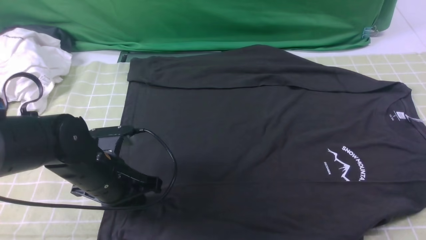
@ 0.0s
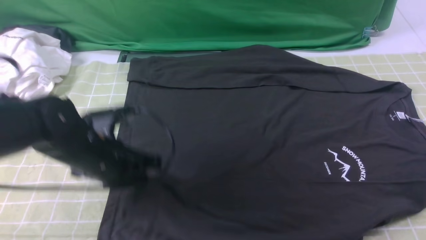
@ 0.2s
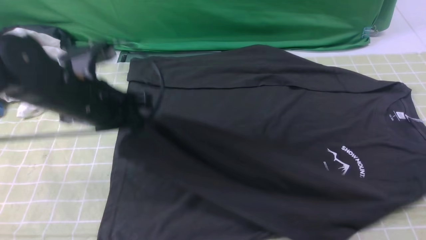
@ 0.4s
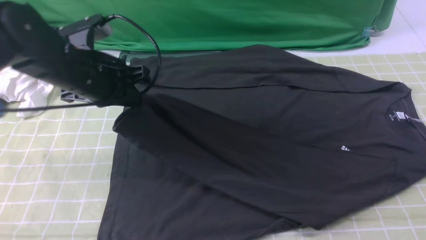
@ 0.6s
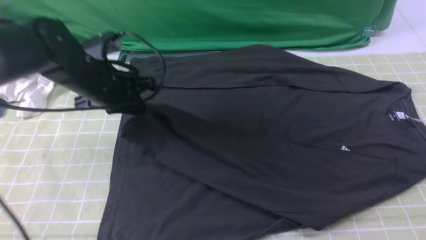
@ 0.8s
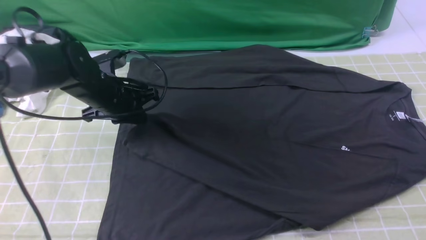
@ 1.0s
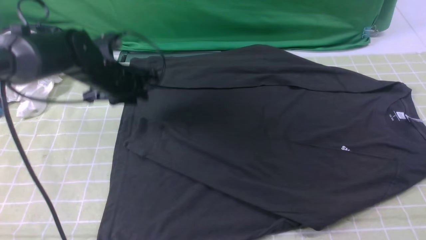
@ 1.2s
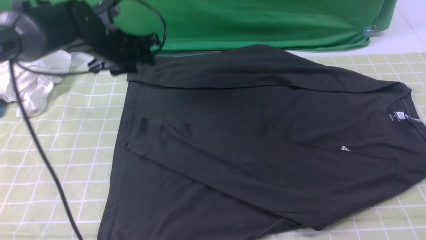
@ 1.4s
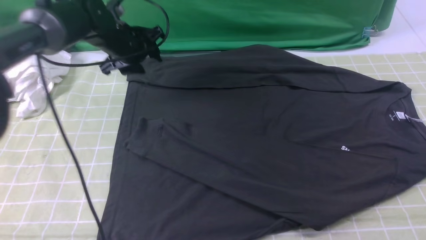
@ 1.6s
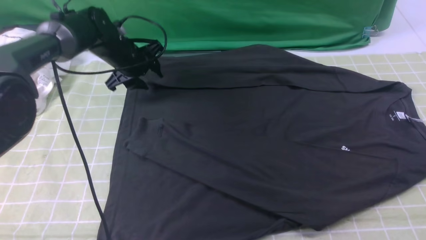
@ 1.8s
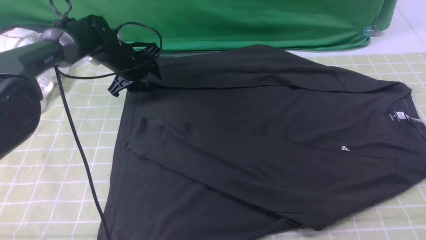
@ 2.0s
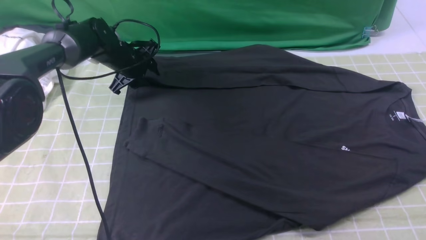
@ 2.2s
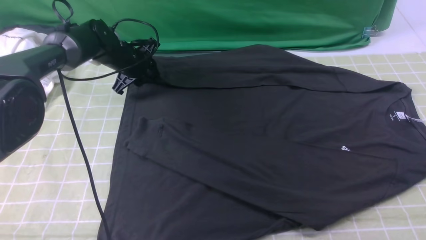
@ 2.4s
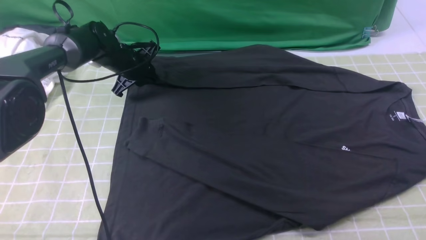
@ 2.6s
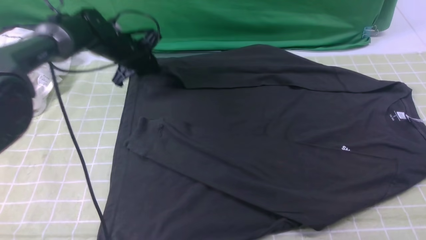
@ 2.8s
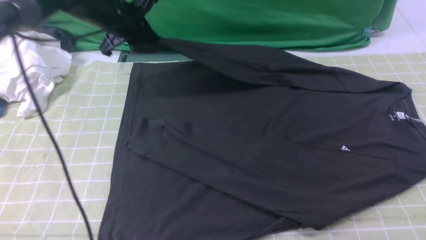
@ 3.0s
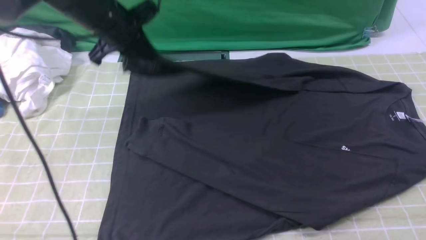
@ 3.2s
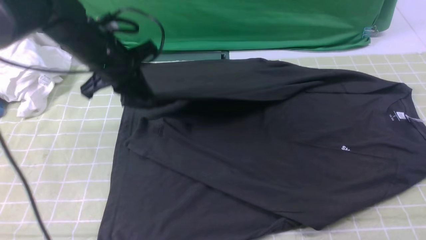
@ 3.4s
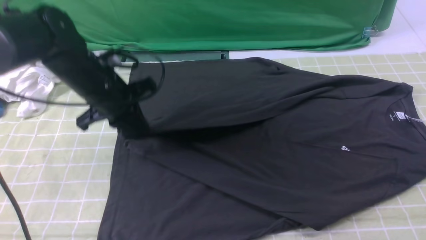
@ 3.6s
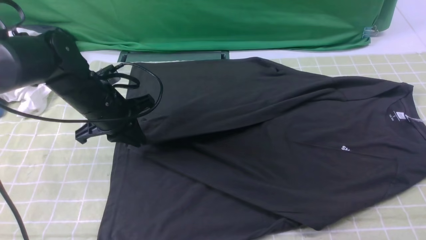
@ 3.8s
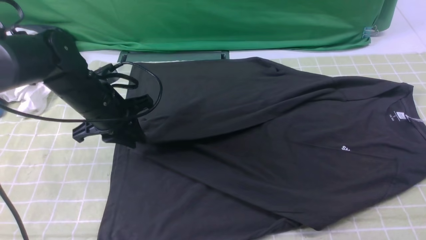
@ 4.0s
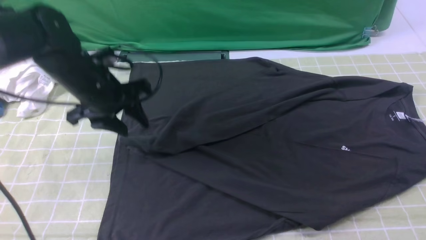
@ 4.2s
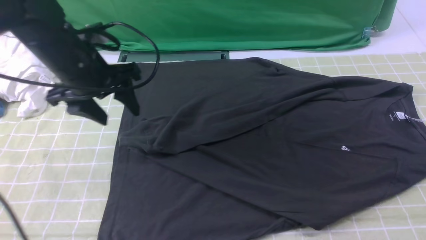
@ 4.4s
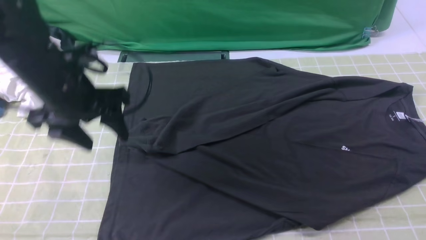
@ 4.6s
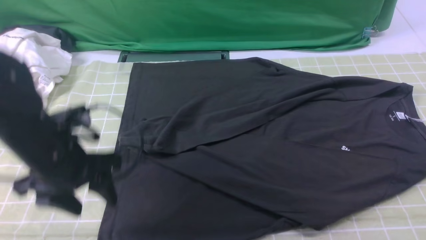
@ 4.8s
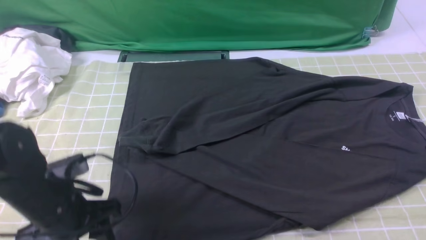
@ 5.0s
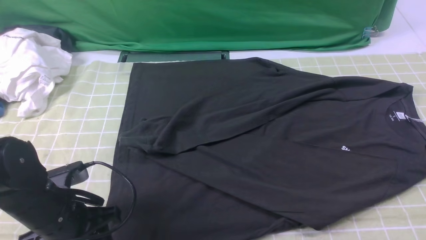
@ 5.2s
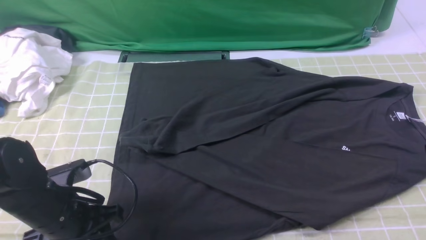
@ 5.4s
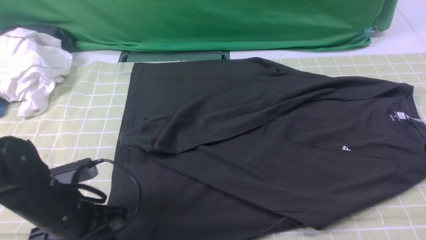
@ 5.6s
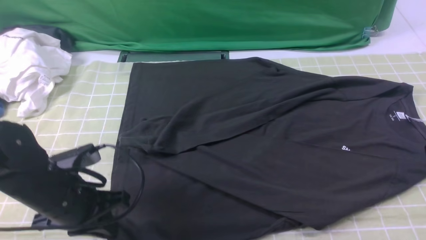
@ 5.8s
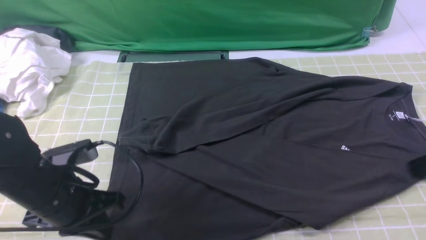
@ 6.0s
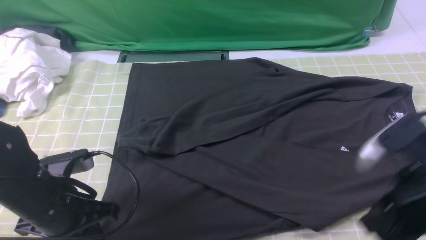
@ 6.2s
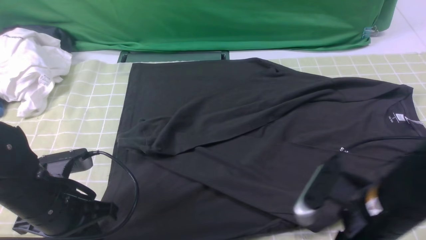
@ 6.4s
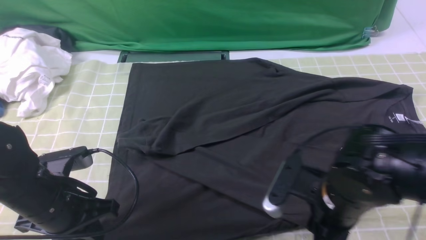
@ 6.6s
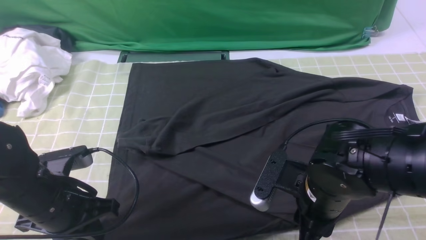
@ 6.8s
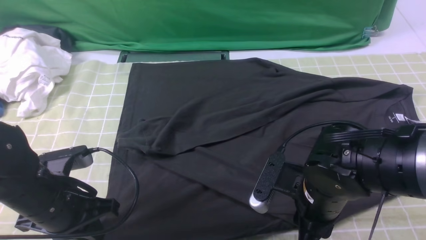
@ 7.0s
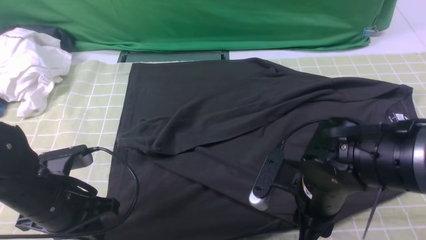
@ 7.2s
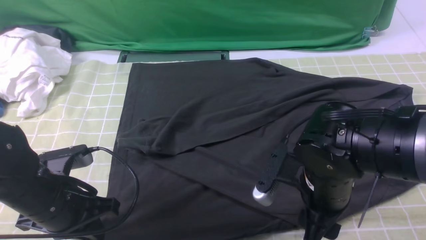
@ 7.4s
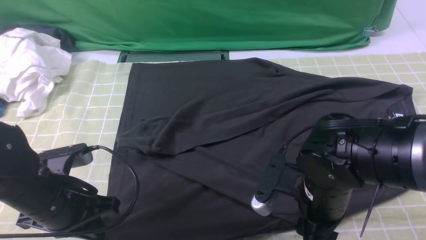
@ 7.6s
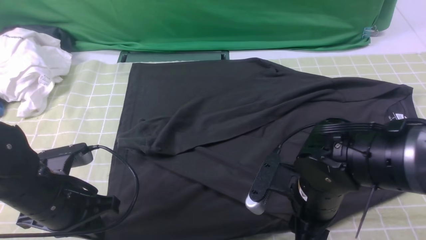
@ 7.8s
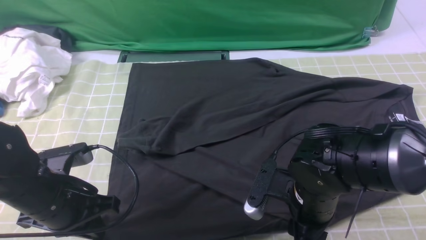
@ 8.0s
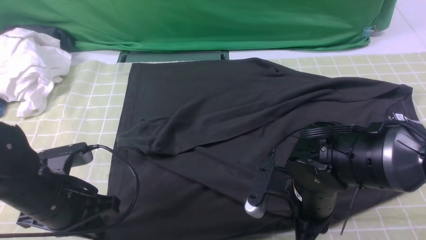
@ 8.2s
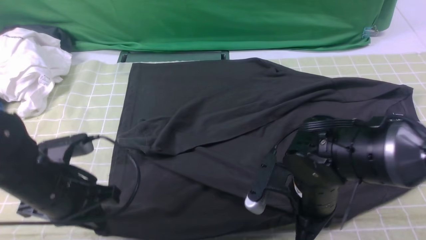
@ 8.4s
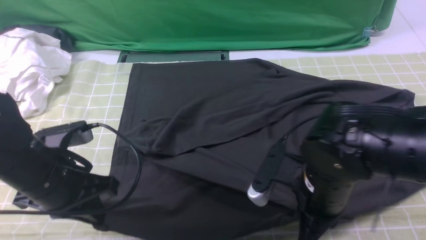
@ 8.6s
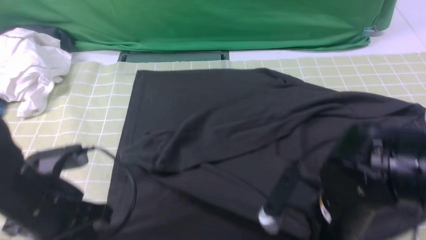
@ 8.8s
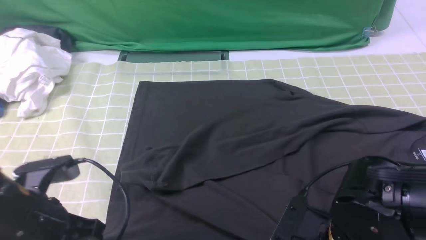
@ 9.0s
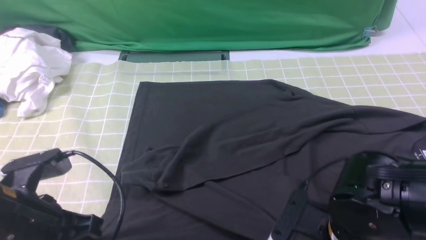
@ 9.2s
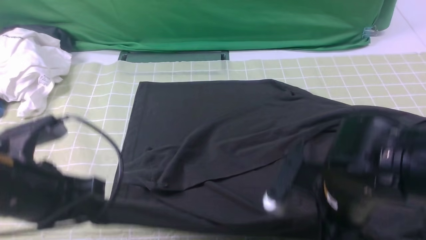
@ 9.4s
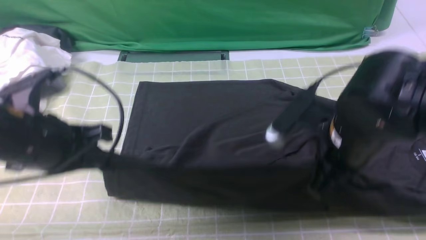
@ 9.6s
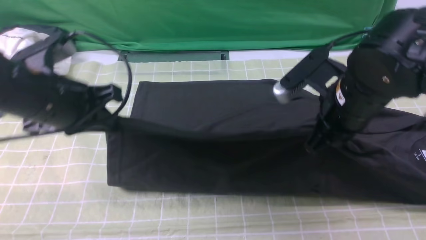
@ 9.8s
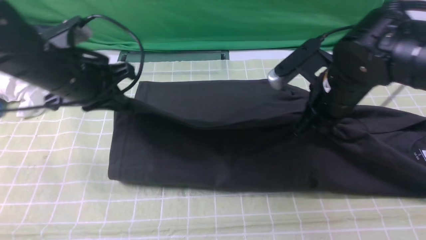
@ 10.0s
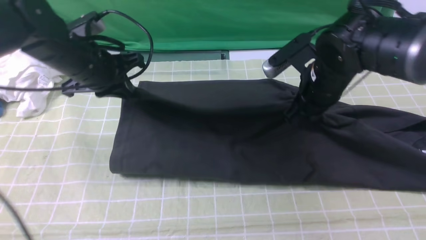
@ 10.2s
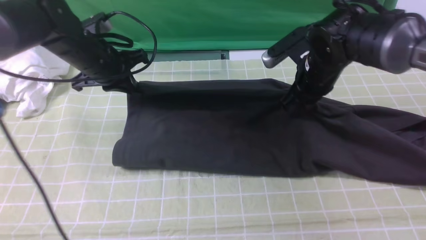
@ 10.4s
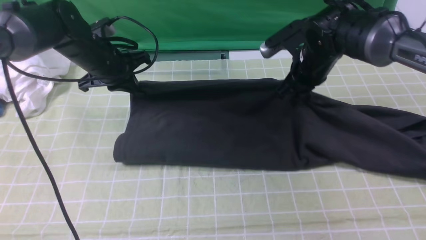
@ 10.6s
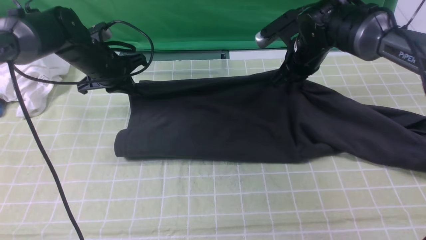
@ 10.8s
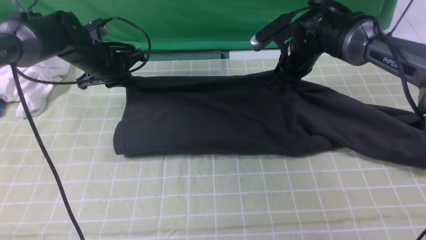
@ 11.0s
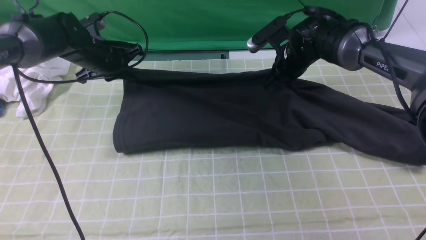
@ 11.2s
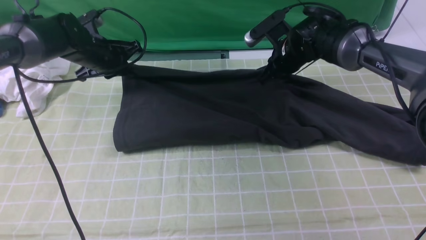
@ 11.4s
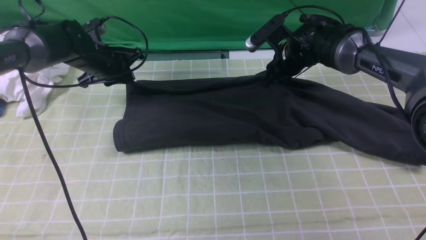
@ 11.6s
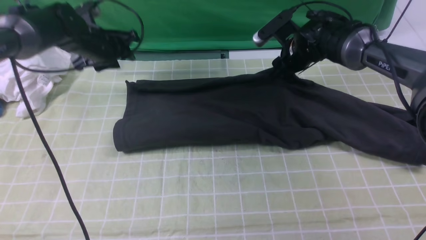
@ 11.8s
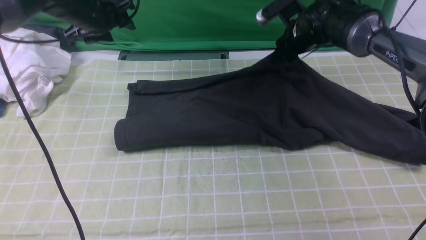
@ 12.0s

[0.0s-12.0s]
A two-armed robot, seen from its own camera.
Step, 0.2s to 1.0s: use the left arm to drag and place the cuff at the centered position on the left edge of the fabric.
Step, 1.2s to 2.6s: use the left arm to clamp the cuff farthest from it.
Step, 2.8s to 4.2s: use the left arm to drag and drop the cuff onto the cuff closest to the left arm.
Step, 4.4s to 8.2s: use both arms simultaneously to clamp the lower edge of the clothing fabric.
0.0s to 1.6s: The left gripper is displaced forward by about 25 cm, and opens its fingers.
1.6s to 3.0s: The left gripper travels upward by approximately 5 cm, and closes up.
3.0s to 4.4s: The left gripper shifts some 15 cm backward, and opens.
4.4s to 6.0s: The left gripper heads backward and downward, covering approximately 15 cm, and closes its fingers.
6.0s to 7.6s: The right gripper shifts about 20 cm to the left and downward, and opens its fingers.
7.6s to 9.0s: The left gripper moves roughly 5 cm; the right gripper is displaced backward by approximately 5 cm, and closes its fingers.
9.0s to 10.4s: The grippers both shift forward by approximately 25 cm.
10.4s to 12.0s: The grippers both shift forward by about 10 cm. The left gripper opens its fingers; the right gripper opens up.

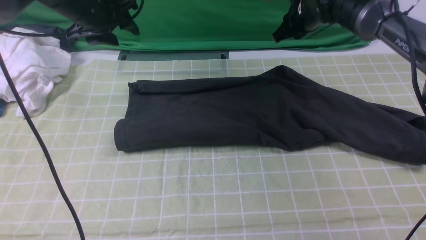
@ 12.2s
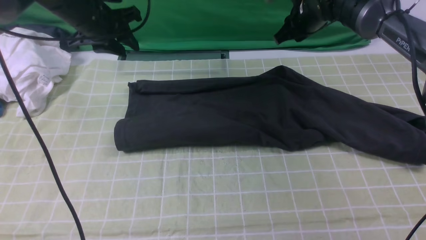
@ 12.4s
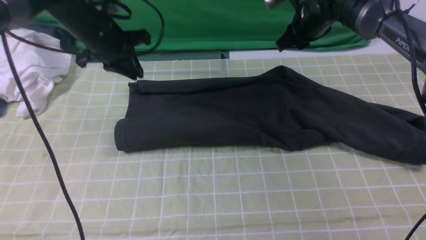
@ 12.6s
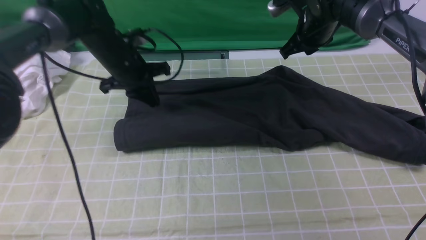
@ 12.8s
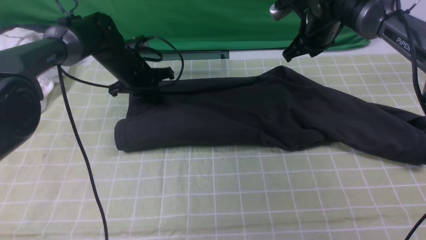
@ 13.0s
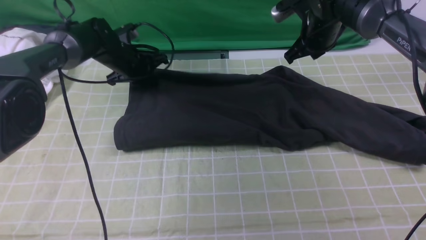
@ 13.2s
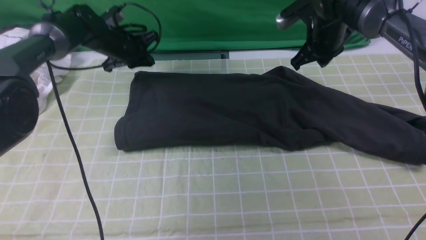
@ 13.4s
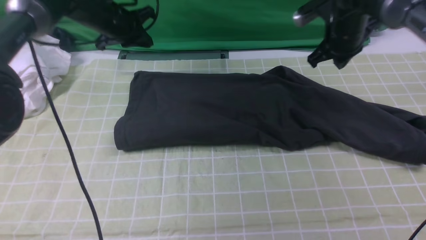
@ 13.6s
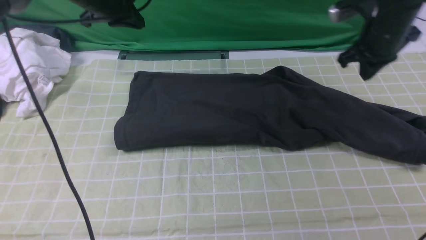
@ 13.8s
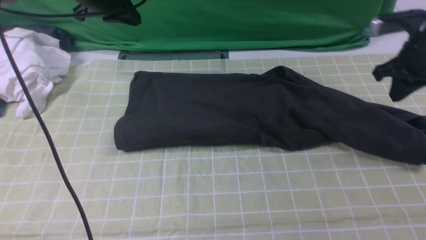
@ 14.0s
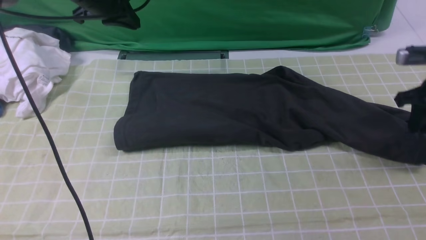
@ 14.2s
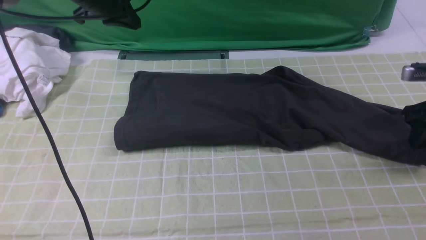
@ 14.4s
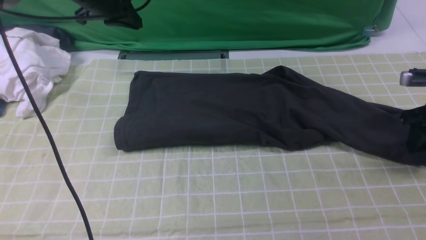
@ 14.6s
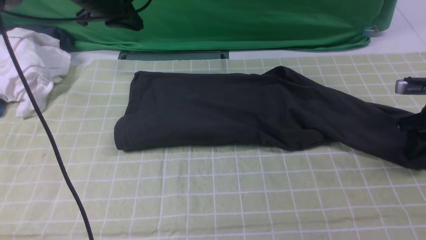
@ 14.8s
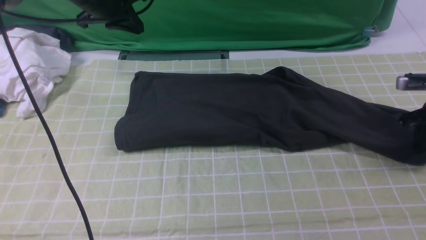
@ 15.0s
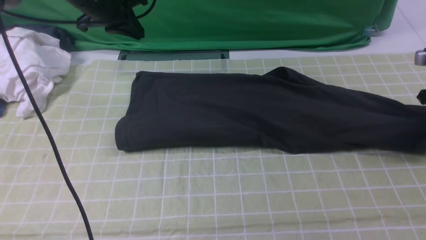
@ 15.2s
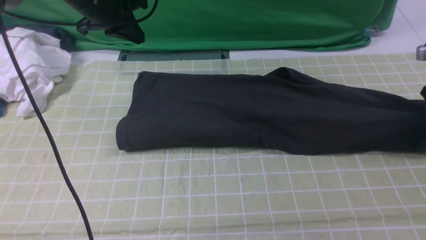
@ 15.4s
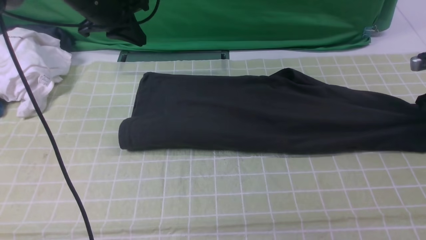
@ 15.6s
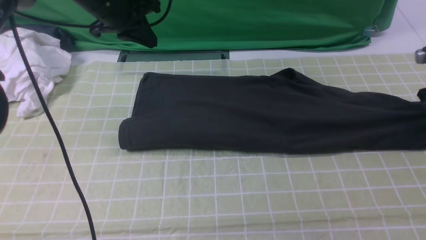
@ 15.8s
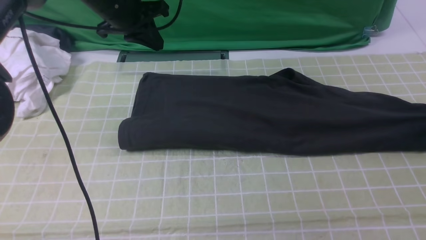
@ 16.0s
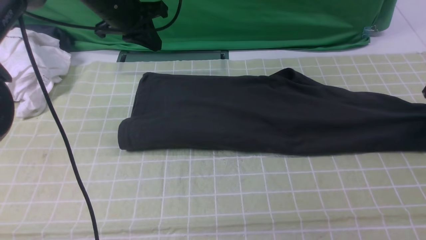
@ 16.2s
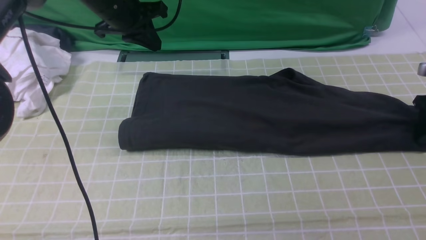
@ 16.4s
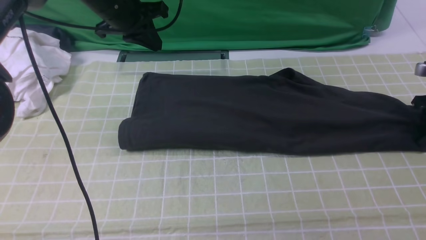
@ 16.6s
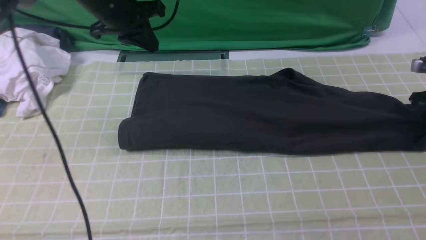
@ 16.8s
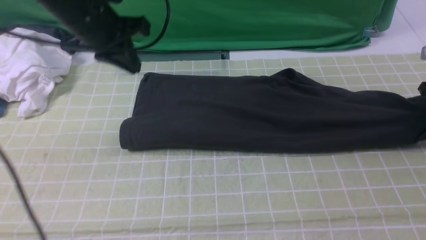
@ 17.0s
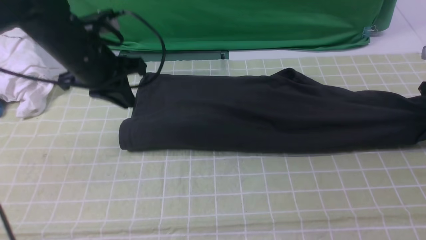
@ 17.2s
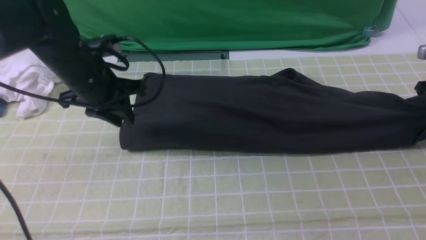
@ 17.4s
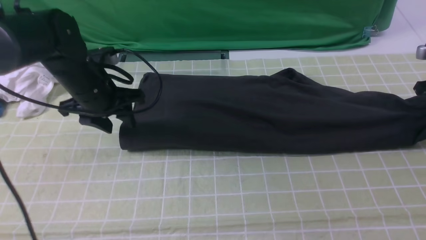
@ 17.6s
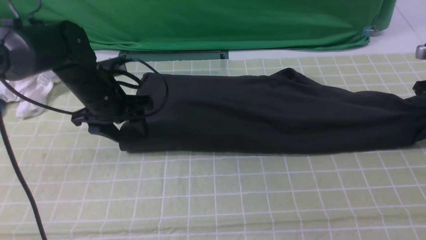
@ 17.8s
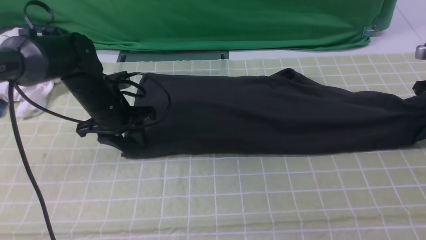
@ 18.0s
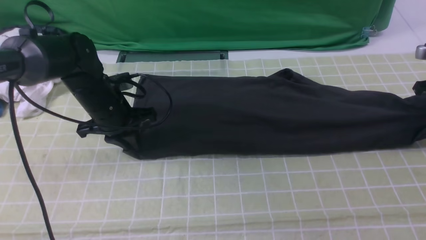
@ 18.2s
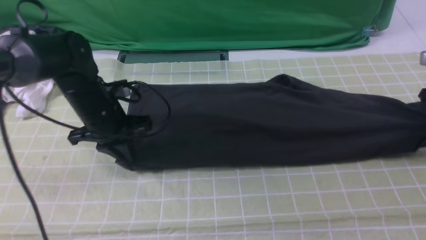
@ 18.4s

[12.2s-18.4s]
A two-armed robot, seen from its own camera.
Step, 12.2s to 16.8s: use the right arm to clamp the right edge of the fabric.
12.2s to 13.8s: The right gripper heads to the right and backward, covering some 15 cm, and closes up. The left gripper reaches some 10 cm downward, then returns, and closes its fingers.
13.8s to 15.4s: The right gripper shifts approximately 15 cm to the right and downward, and opens and closes again.
15.4s to 16.8s: The right gripper opens and closes again. Meanwhile the left gripper moves some 5 cm.
16.8s to 18.4s: The right gripper shifts by approximately 5 cm, while the left gripper shifts roughly 15 cm downward and backward, and opens, then closes again.
